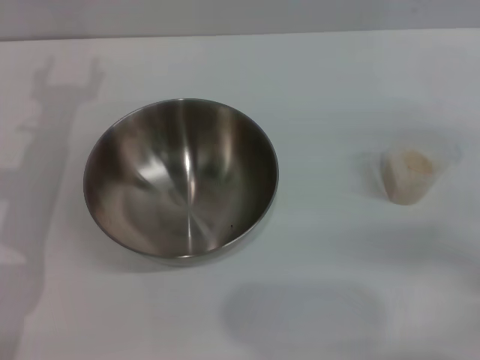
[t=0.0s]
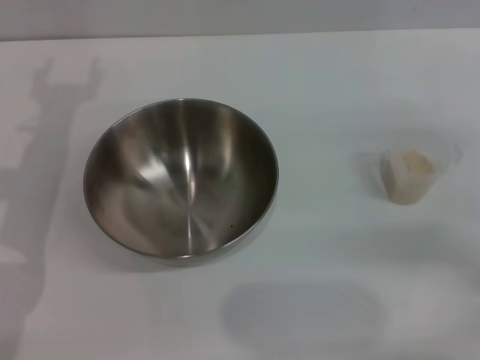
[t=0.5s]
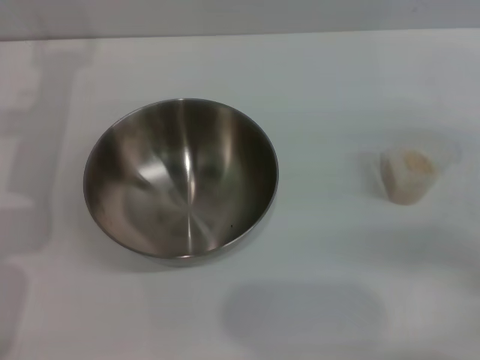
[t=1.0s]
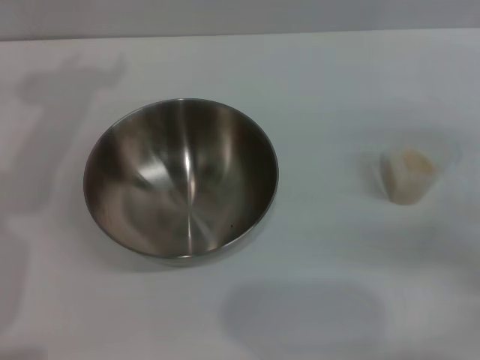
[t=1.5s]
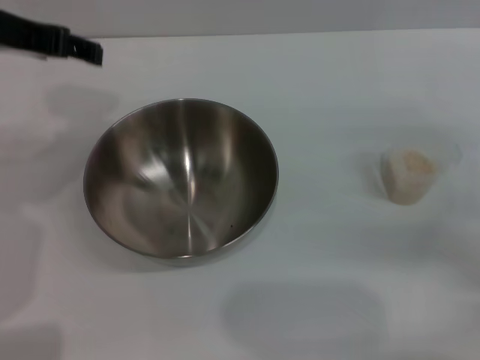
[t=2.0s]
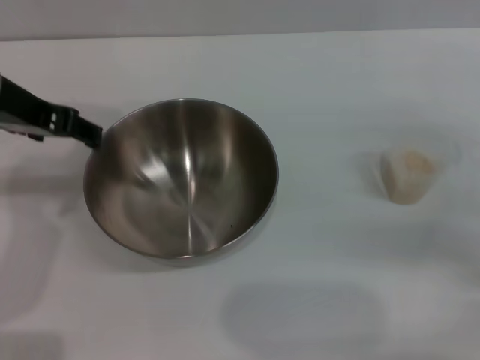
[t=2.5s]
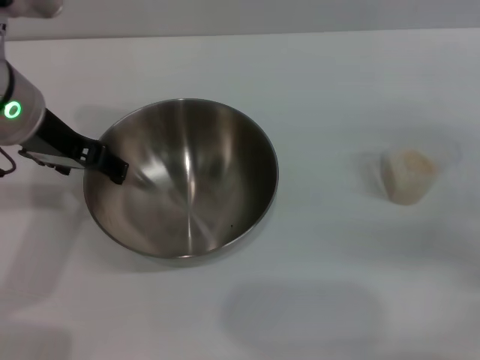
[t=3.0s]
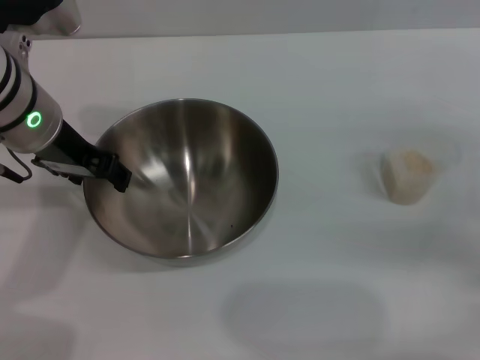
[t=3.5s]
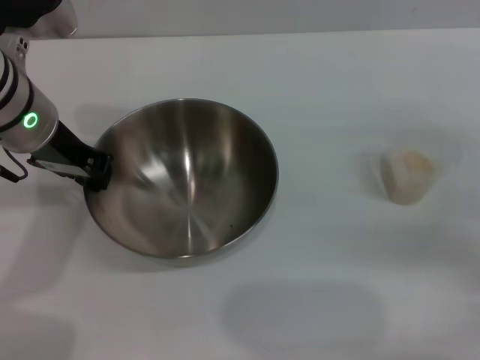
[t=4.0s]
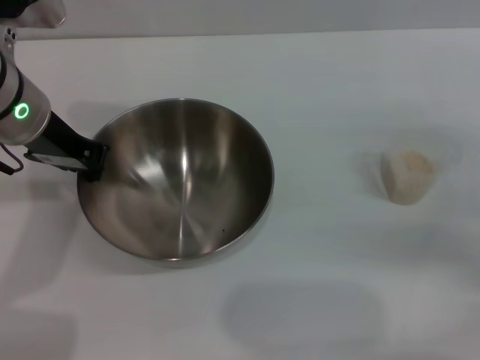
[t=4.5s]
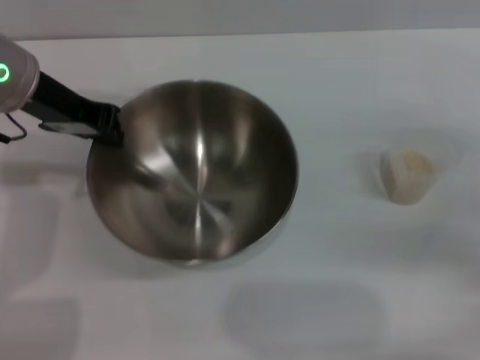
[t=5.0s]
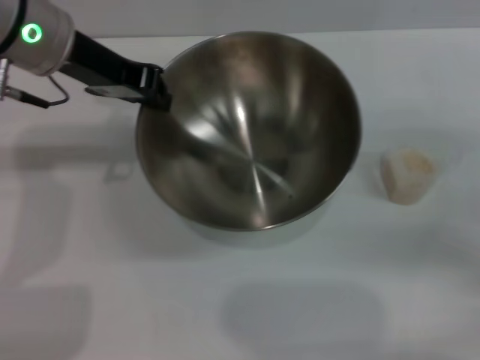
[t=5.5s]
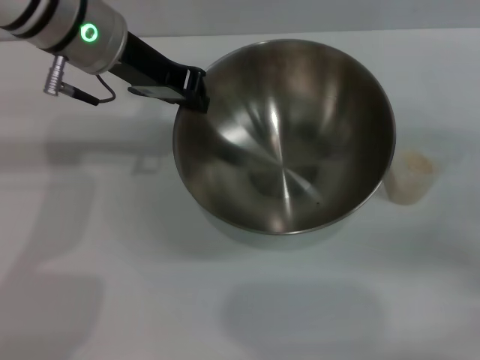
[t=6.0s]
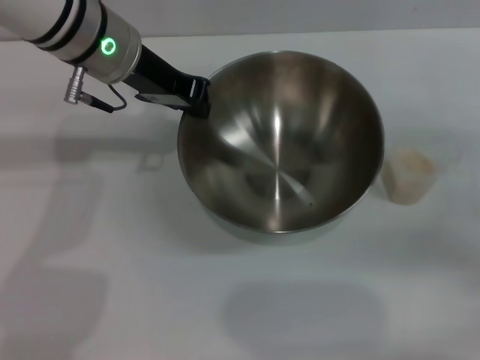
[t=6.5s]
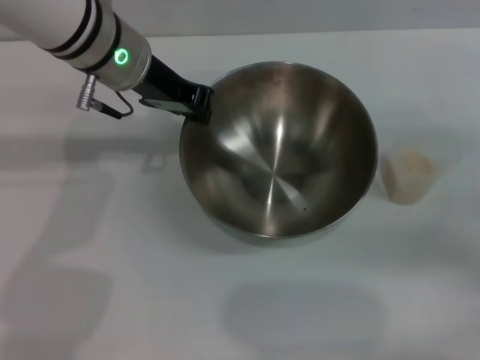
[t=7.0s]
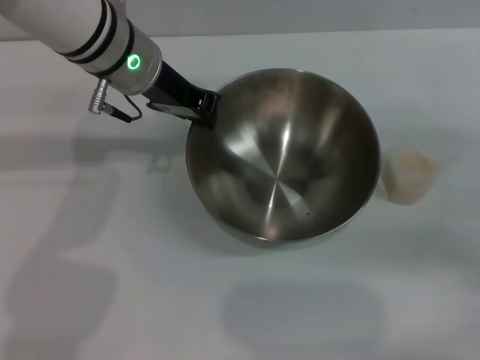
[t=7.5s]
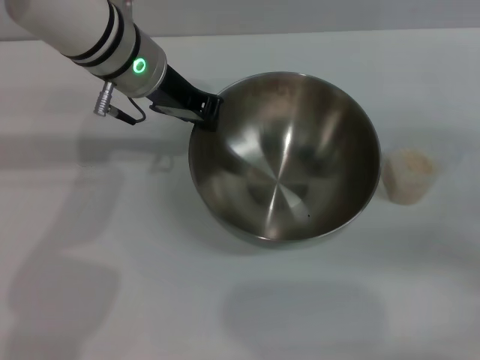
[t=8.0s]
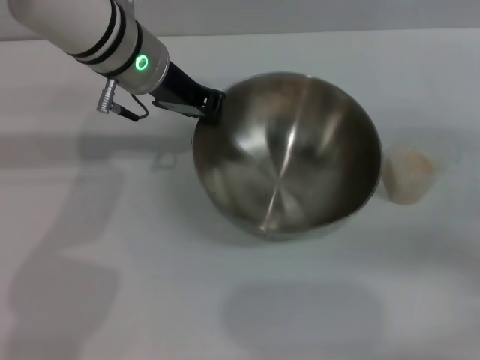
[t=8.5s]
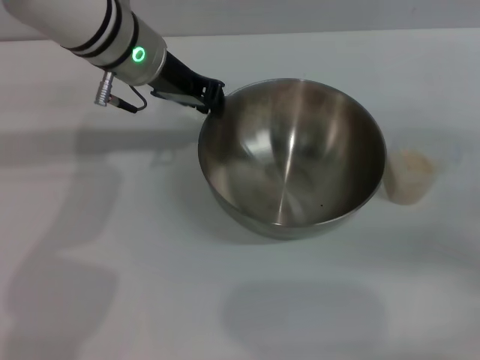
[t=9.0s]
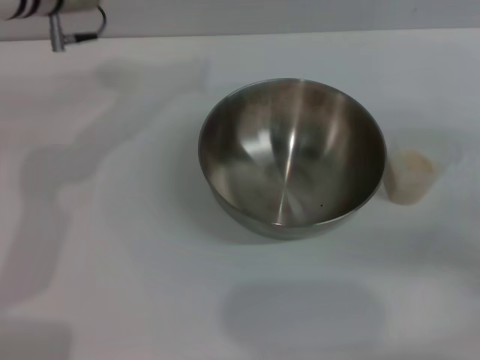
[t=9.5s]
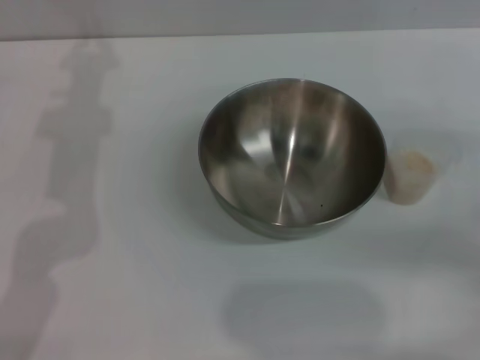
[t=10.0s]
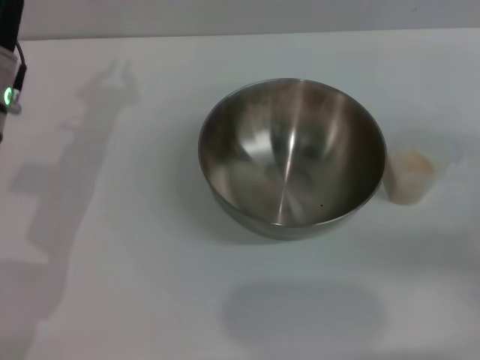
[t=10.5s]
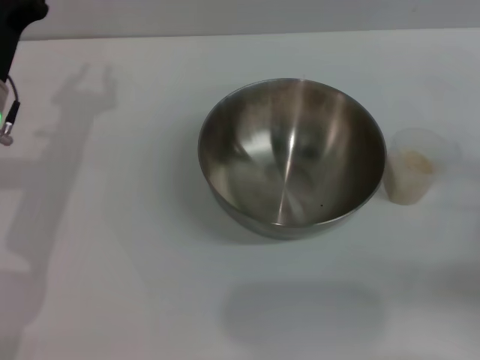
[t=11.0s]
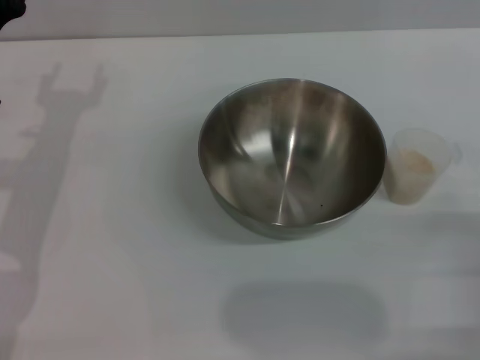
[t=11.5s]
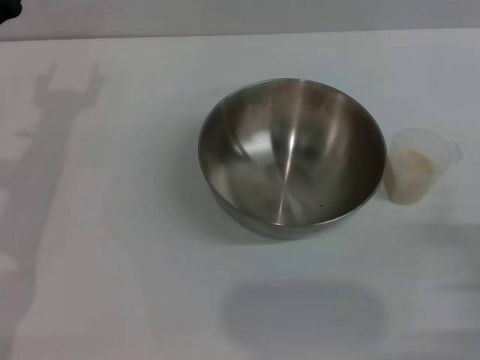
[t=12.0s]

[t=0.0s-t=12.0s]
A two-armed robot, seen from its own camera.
Task of the whole recording: Place the bowl in the middle of the table with one hand and pour the rice from the grain cup into it with the other hand.
Step, t=0.0s to t=6.5s: Pick up the bowl with the left gripper.
Step, t=7.0s to t=9.0s: Place the bowl in the center of view with the left gripper.
t=0.0s to t=2.0s: The left gripper goes approximately 15 cm upward.
t=2.0s to t=4.0s: The left gripper shifts roughly 10 cm downward, and closes.
t=4.0s to t=6.0s: The left gripper moves some 5 cm, and closes up.
t=6.0s to t=8.0s: The left gripper ends up some 5 cm from where it was.
t=8.0s to t=10.0s: The left gripper moves to the left, roughly 10 cm.

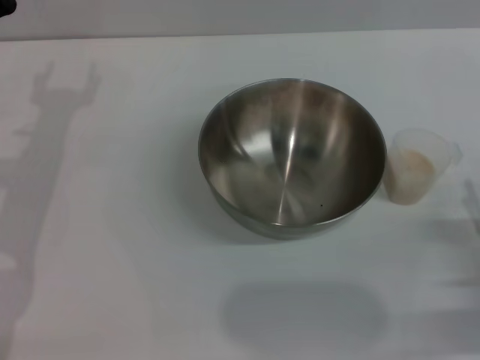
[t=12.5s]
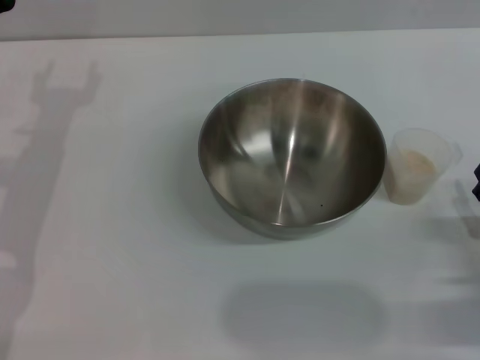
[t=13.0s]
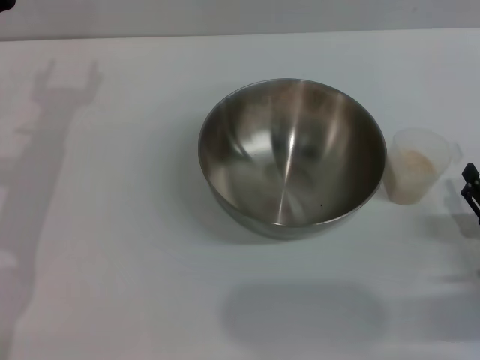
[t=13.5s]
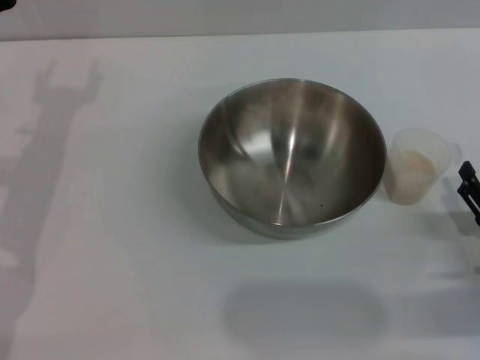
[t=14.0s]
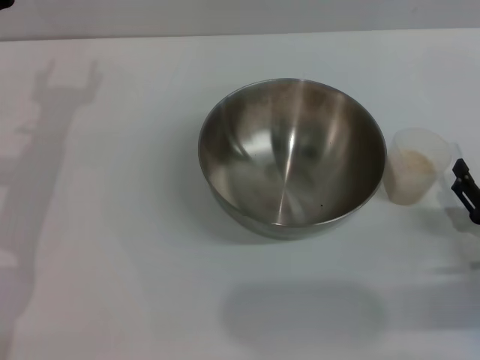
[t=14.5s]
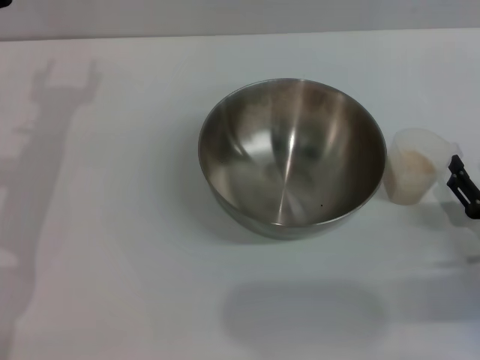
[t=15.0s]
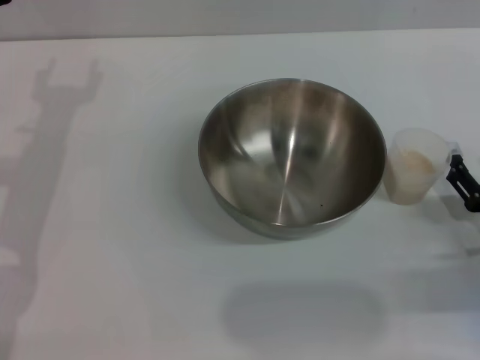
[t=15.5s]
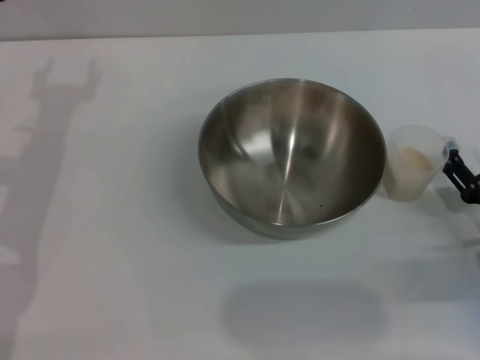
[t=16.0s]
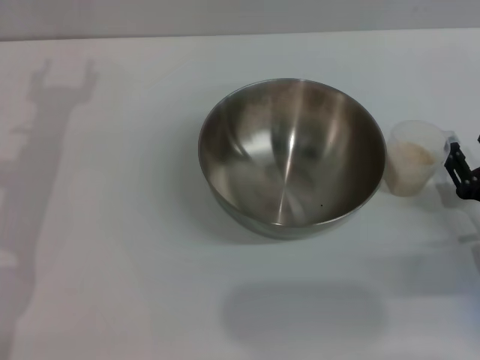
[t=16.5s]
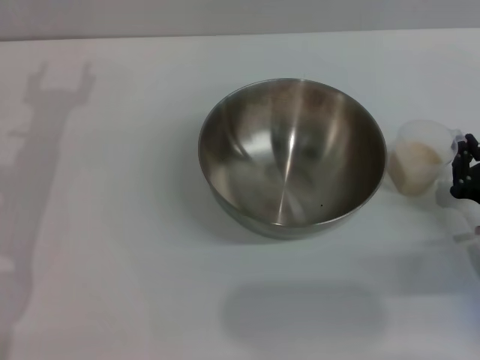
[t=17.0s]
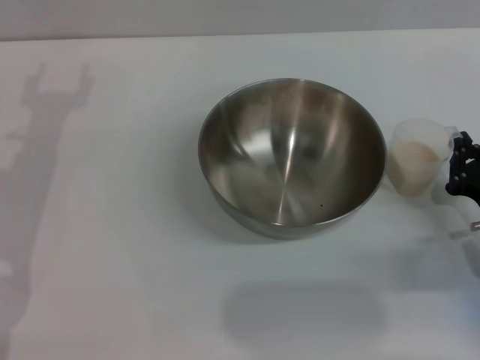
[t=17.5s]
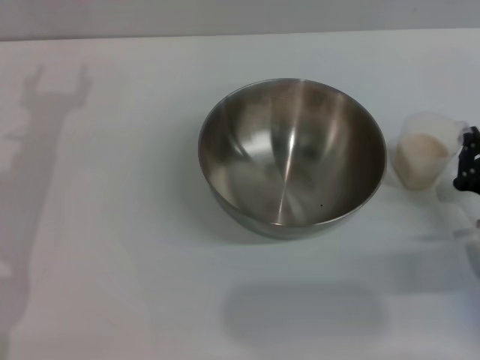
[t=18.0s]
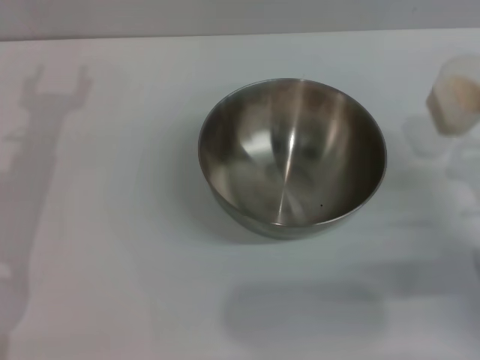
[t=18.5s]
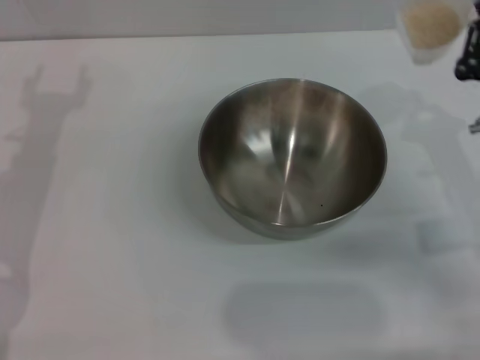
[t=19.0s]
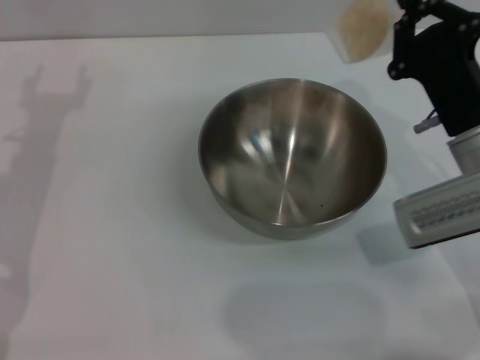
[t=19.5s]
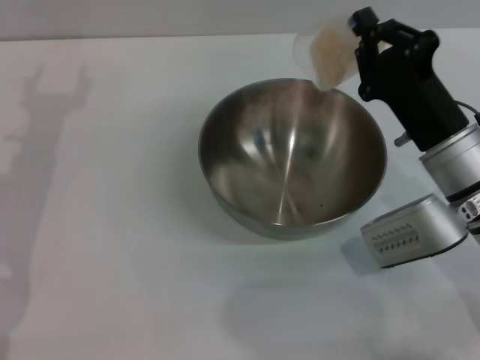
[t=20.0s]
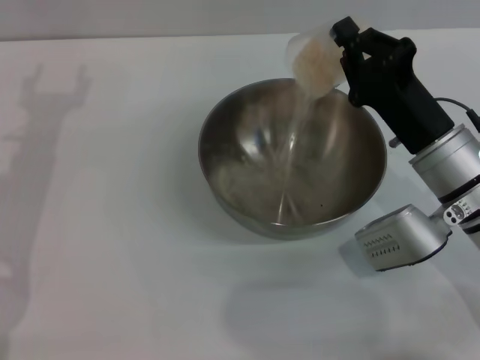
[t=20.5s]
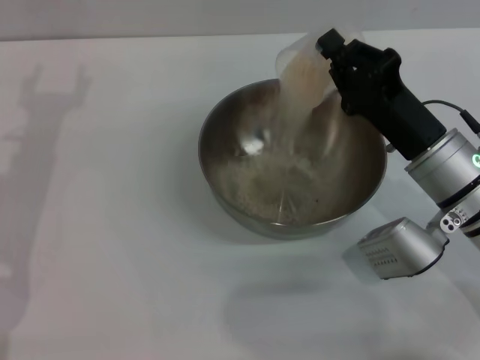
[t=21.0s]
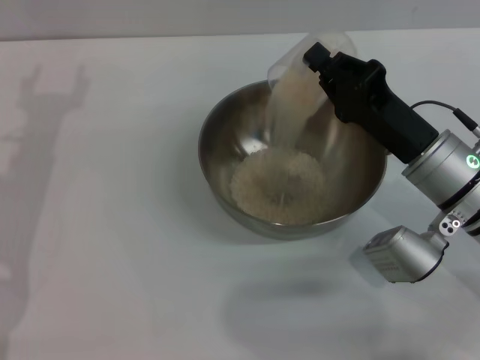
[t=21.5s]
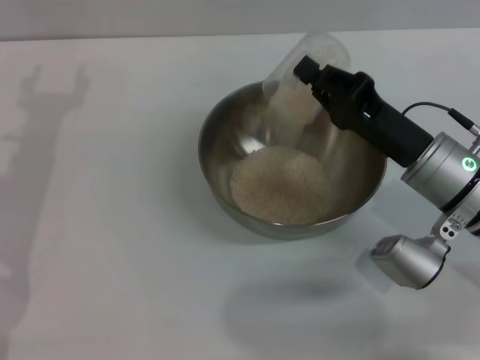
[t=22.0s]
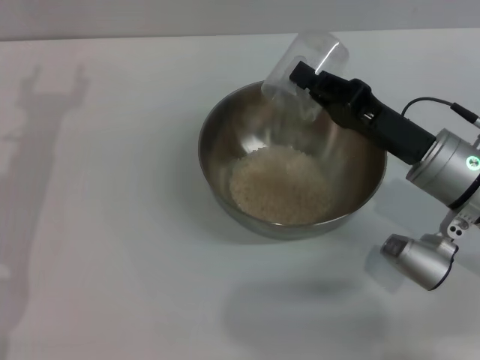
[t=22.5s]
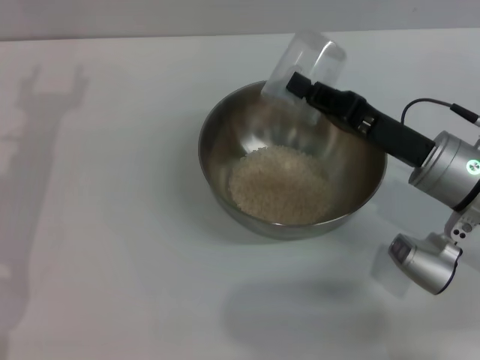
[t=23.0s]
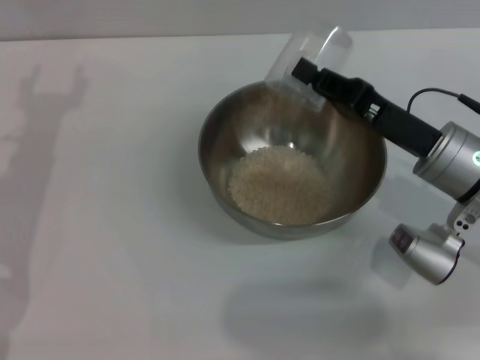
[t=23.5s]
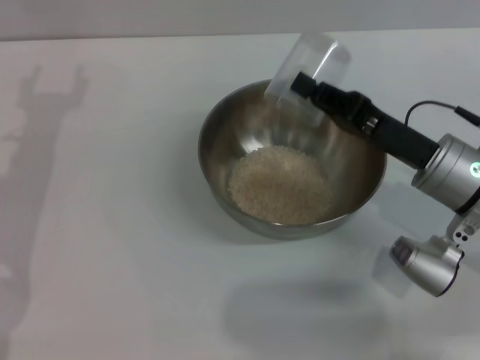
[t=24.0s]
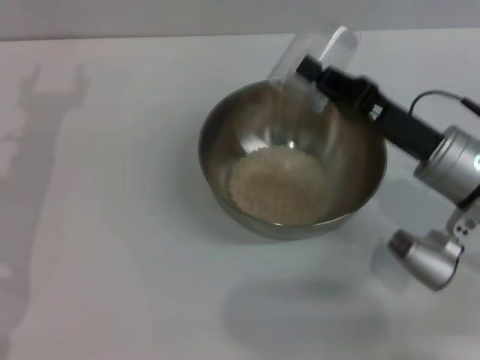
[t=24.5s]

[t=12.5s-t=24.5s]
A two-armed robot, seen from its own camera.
Task of the whole recording: Place the bowl in the middle of the table with one hand and pour the rice from the grain cup into it with the other hand.
Step, t=12.5s to t=18.0s: Pick up the cup with rice in it with the right gripper.
Step, t=18.5s to t=22.5s: Pour the rice from the cup into the bowl with the right gripper.
t=12.5s to t=16.5s: The grippers stay close to where they were, moving slightly.
t=16.5s to t=18.5s: The right gripper closes its fingers.
t=18.5s to t=20.5s: The right gripper shifts about 10 cm to the left and forward.
t=22.5s to t=24.5s: The grippers stay close to where they were, moving slightly.

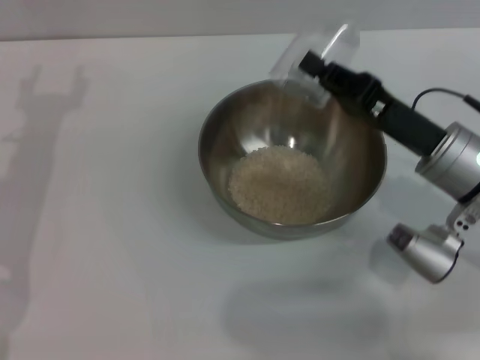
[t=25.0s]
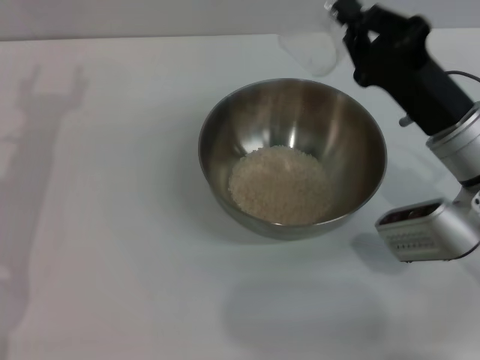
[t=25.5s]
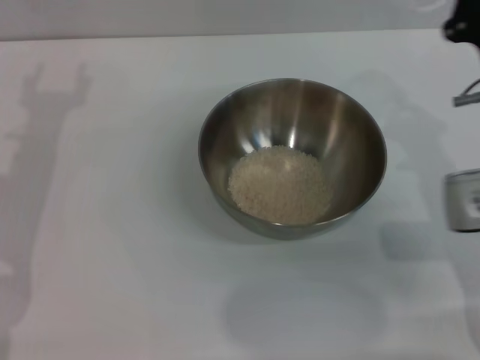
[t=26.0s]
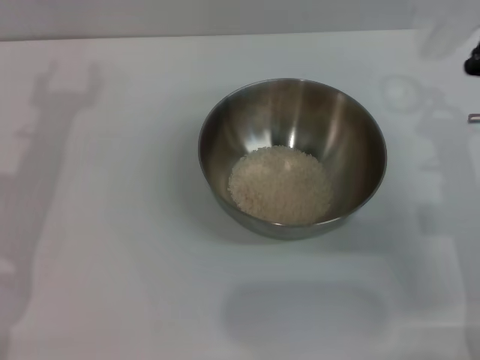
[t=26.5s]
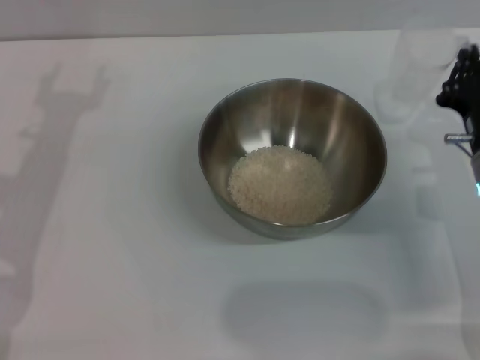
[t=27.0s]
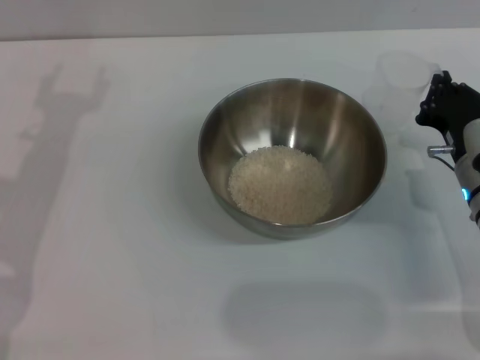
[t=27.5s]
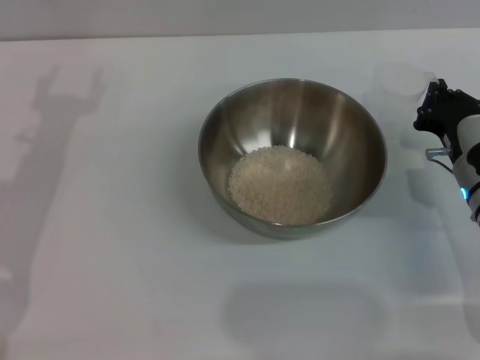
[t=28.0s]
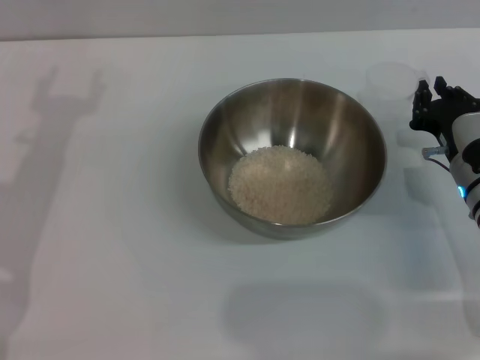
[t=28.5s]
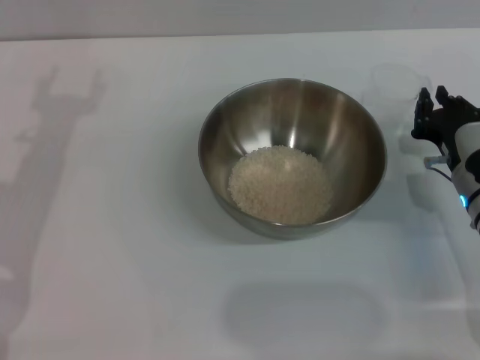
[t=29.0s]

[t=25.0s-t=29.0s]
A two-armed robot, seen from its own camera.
Task of the whole recording: Place the bowl in the middle of the table with one hand and pour the rice from the grain cup into it with the other hand.
t=25.0s to t=27.0s: The right gripper moves roughly 5 cm.
t=27.0s to t=29.0s: The grippers move only a little.
